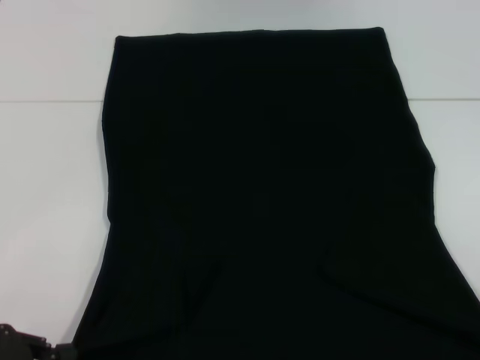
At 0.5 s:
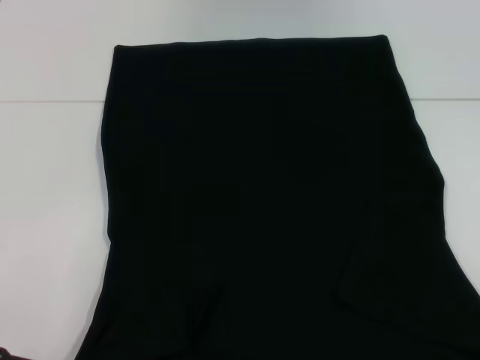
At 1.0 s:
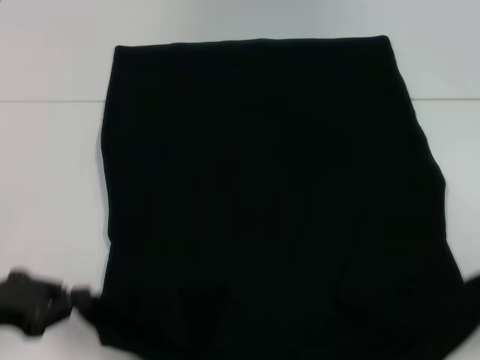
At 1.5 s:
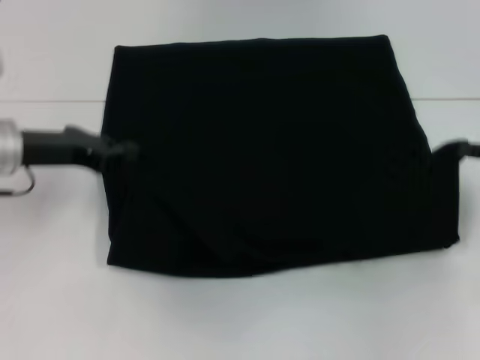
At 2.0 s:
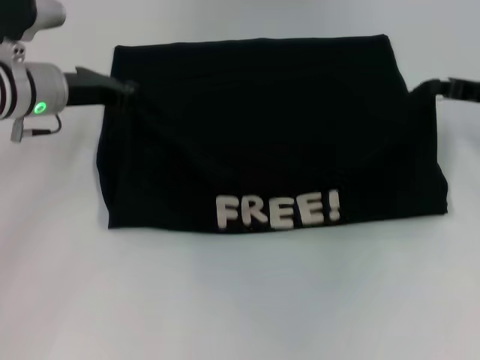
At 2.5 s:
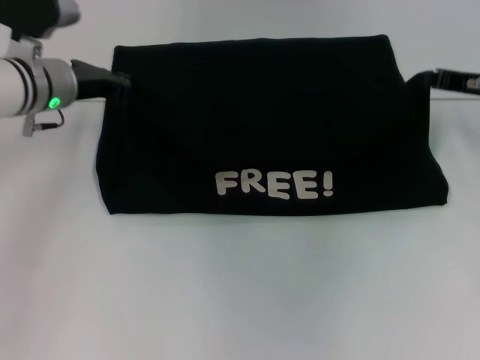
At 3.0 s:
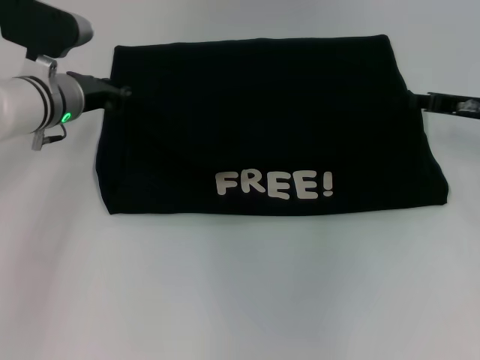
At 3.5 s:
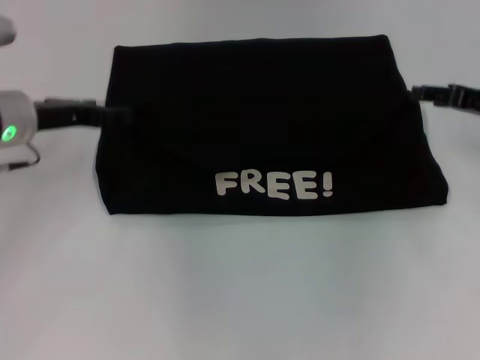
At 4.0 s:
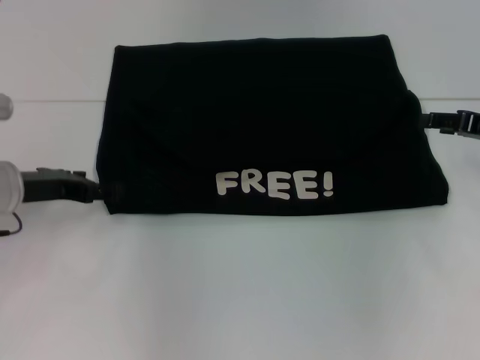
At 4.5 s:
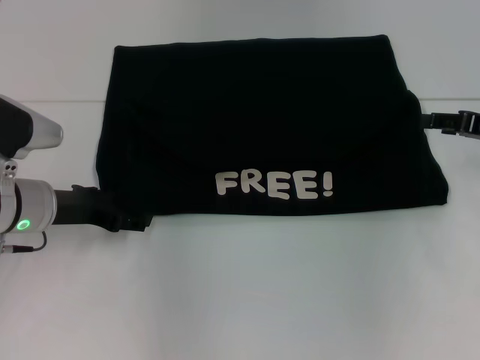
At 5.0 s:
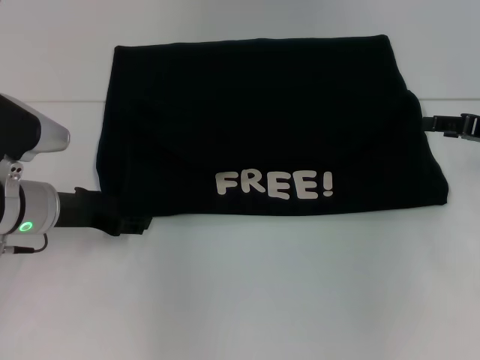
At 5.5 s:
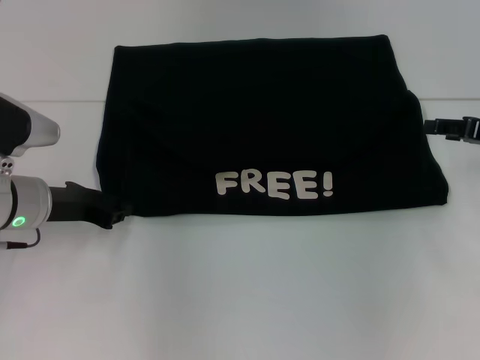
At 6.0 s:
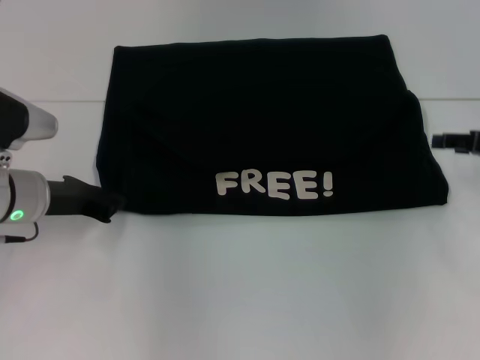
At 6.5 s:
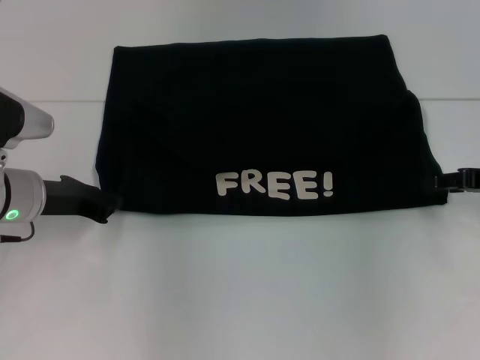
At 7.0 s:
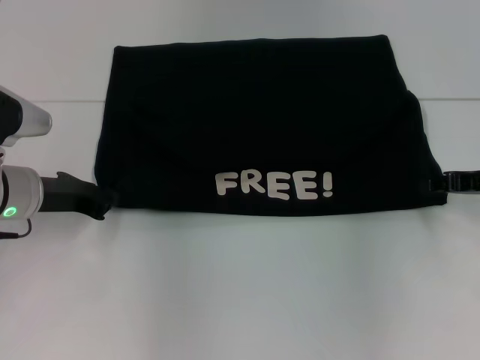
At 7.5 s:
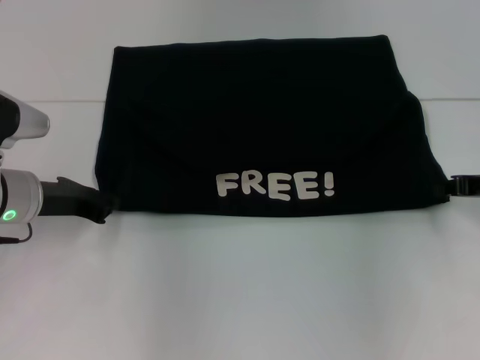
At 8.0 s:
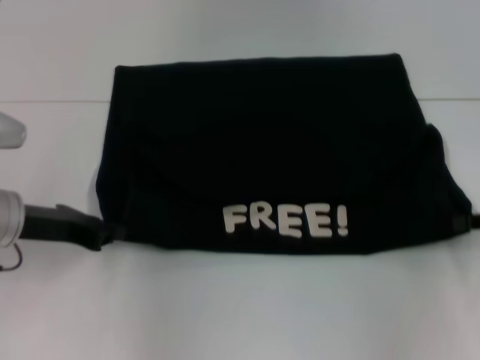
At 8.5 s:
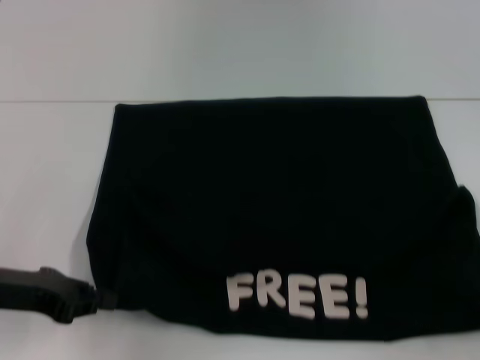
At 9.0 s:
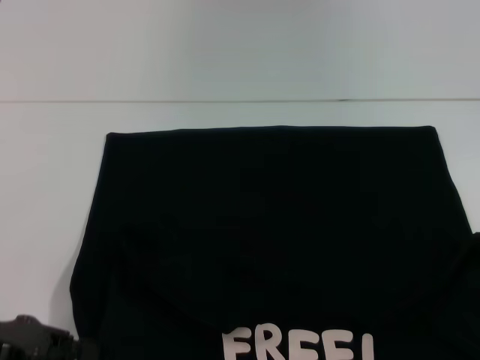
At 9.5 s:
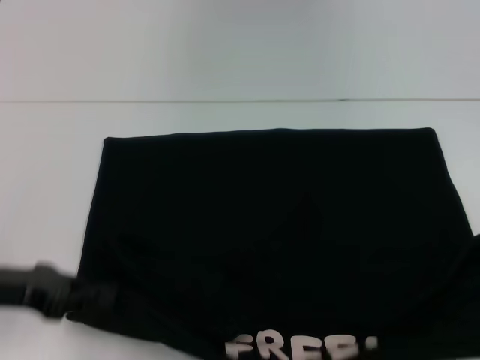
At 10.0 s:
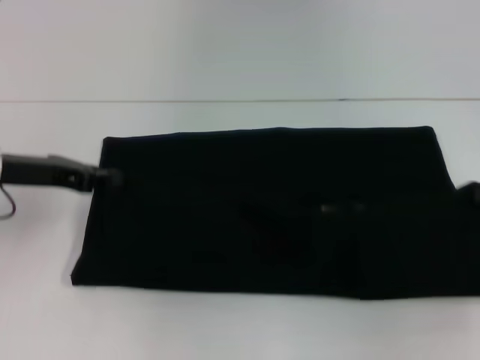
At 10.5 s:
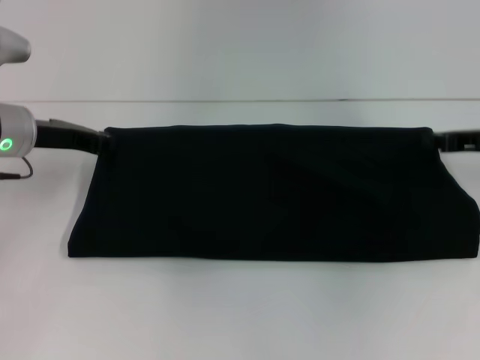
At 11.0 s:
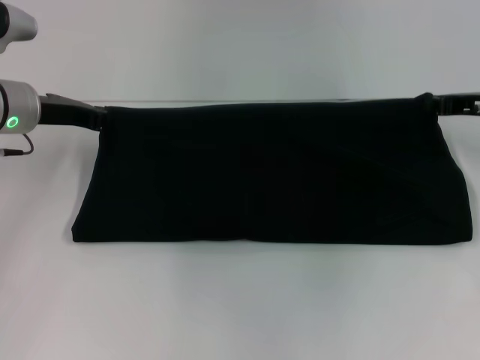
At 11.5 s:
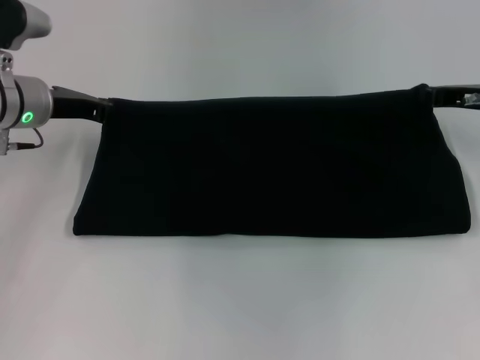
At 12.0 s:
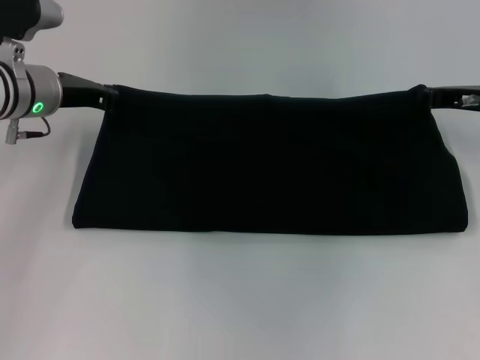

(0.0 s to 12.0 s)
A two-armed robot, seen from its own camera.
Step, 0.0 s - 3.0 s: Fold the clothes with your left hand.
Step, 0.0 s - 3.0 s: Fold the clothes with your right hand.
Step, 3.5 s - 9.0 s: Pull the clothes with your left hand.
Step, 3.5 s - 9.0 s: Pull the clothes with your right hand.
0.0 s - 2.0 s: Both grippers travel together forward, approximately 25 cm.
2.0 s - 4.0 s: The right gripper opens up. Meanwhile the left gripper goes approximately 10 cm backward and downward, and opens.
4.0 s - 6.0 s: The left gripper closes.
6.0 s - 8.0 s: The right gripper heads backward, covering some 5 cm, and closes up.
8.0 s - 10.0 s: The left gripper goes backward and returns, roughly 10 cm each way, while the right gripper reaches some 15 cm backward, then returns.
10.0 s - 12.0 s: The left gripper heads forward, covering about 10 cm, while the right gripper is displaced forward and to the left by about 15 cm.

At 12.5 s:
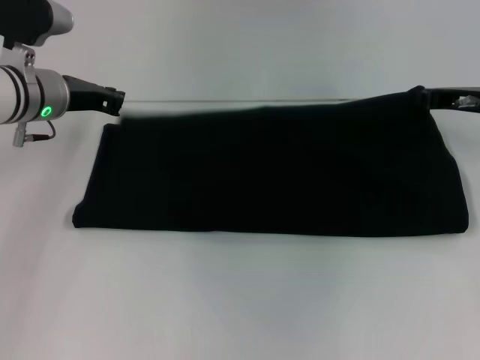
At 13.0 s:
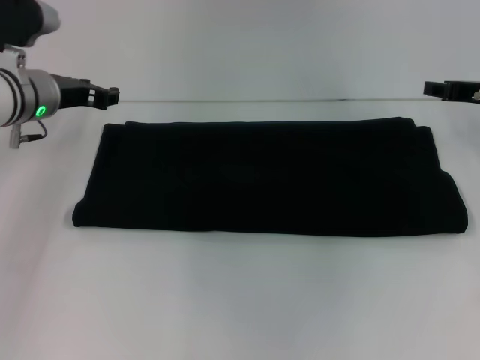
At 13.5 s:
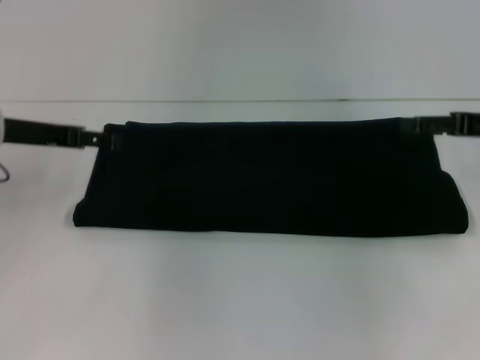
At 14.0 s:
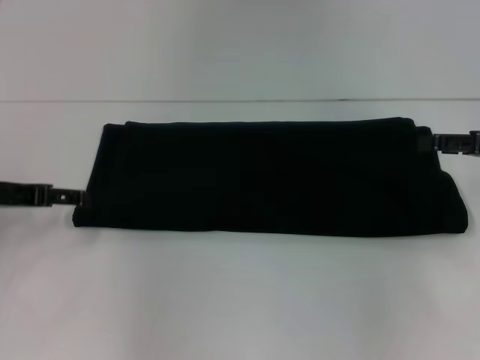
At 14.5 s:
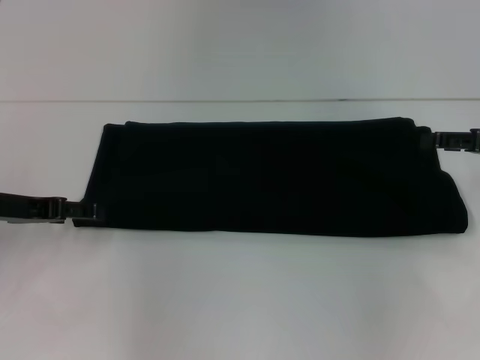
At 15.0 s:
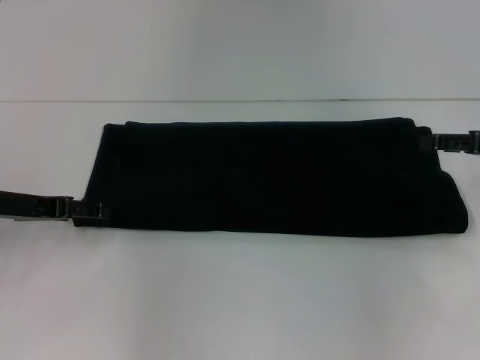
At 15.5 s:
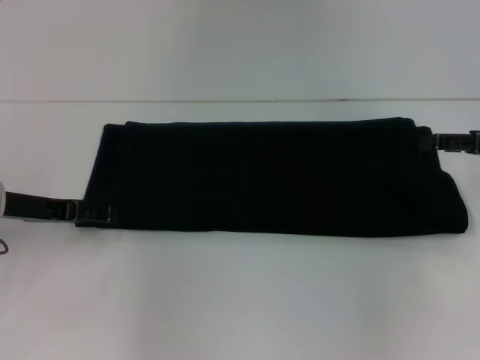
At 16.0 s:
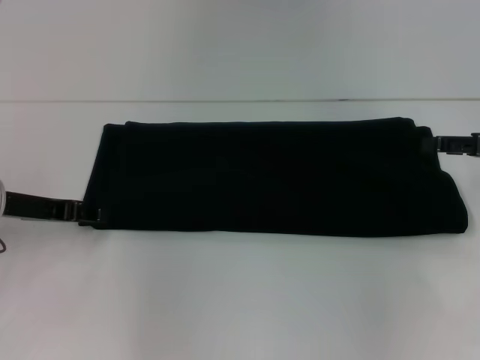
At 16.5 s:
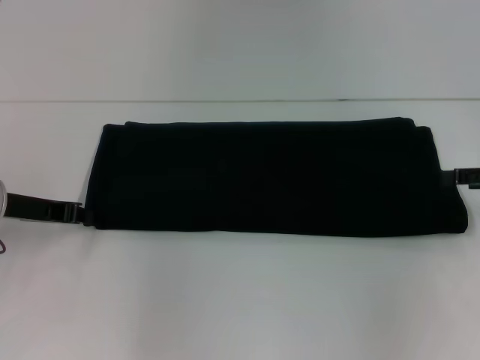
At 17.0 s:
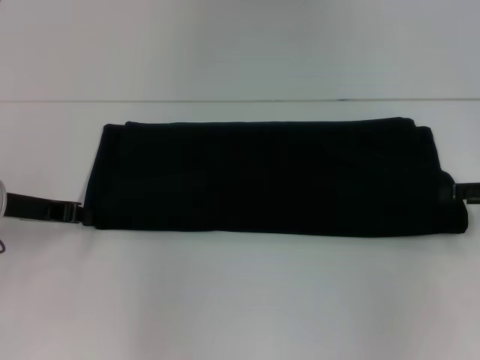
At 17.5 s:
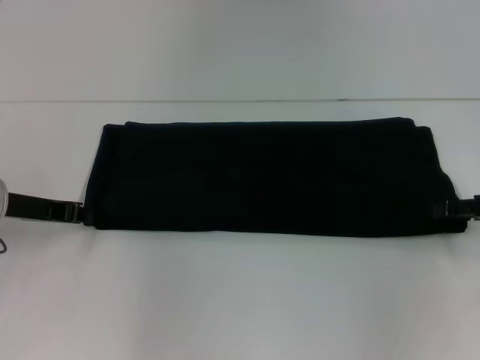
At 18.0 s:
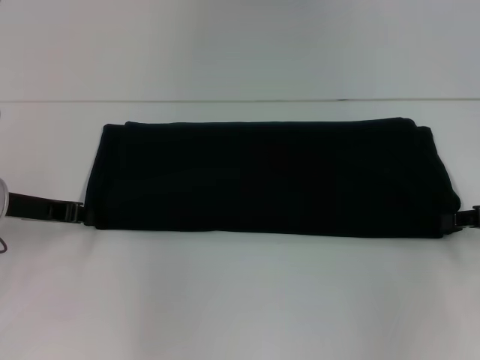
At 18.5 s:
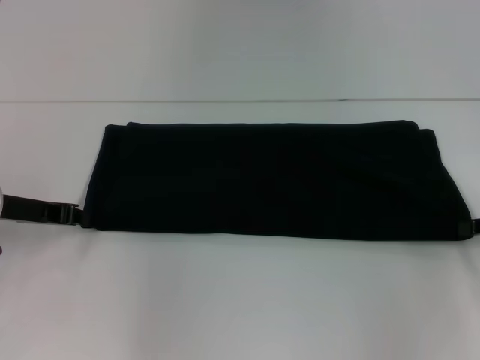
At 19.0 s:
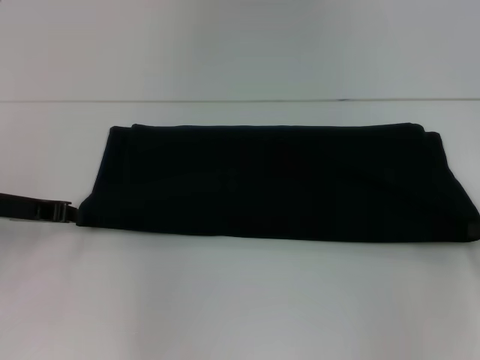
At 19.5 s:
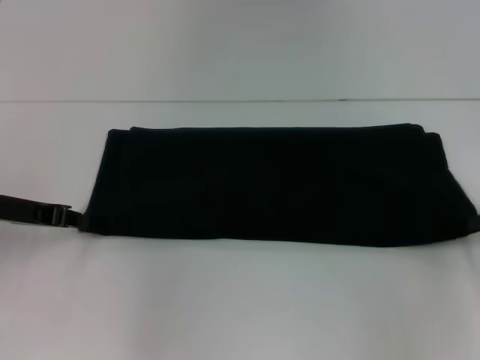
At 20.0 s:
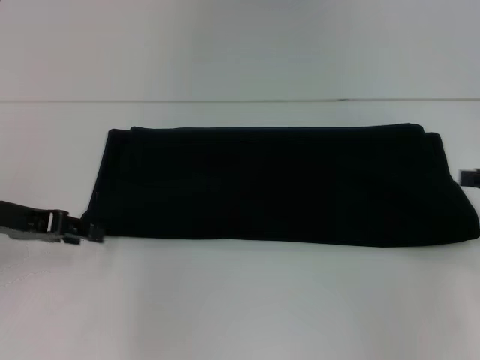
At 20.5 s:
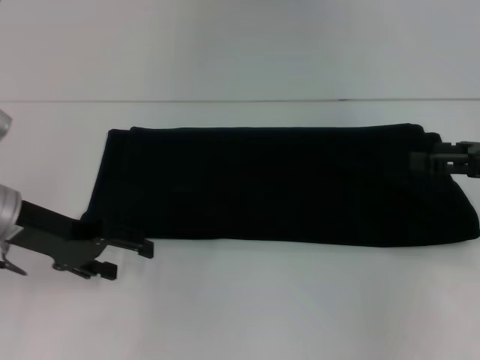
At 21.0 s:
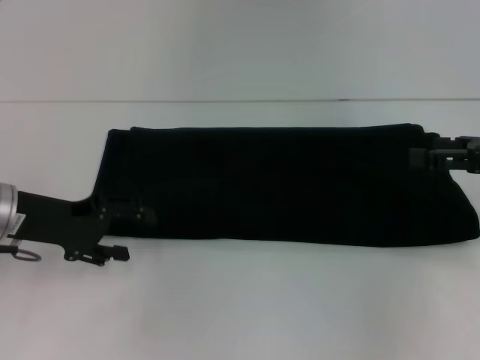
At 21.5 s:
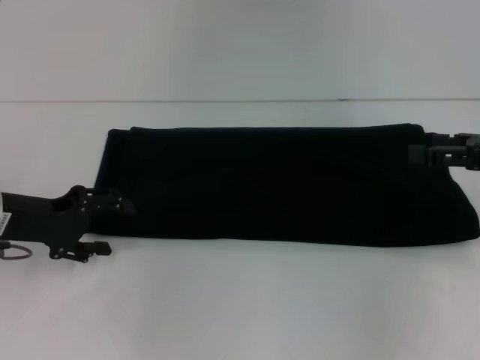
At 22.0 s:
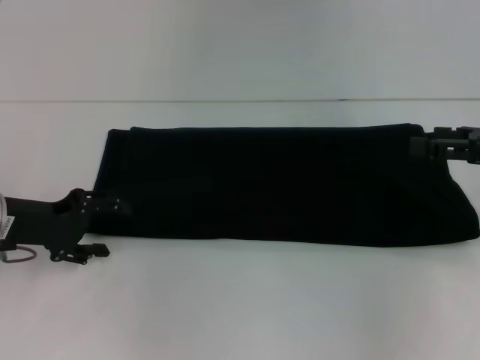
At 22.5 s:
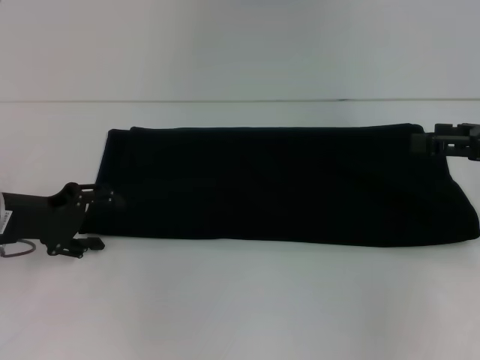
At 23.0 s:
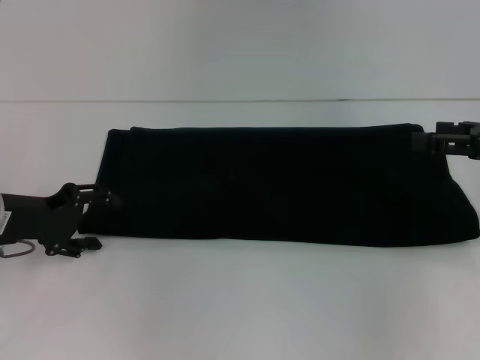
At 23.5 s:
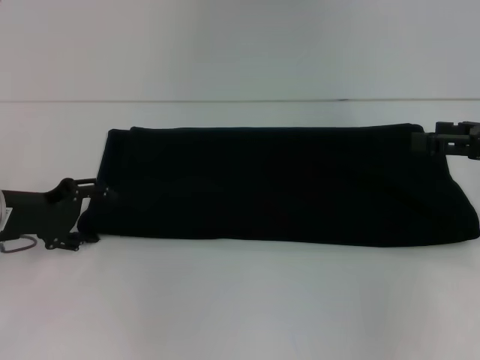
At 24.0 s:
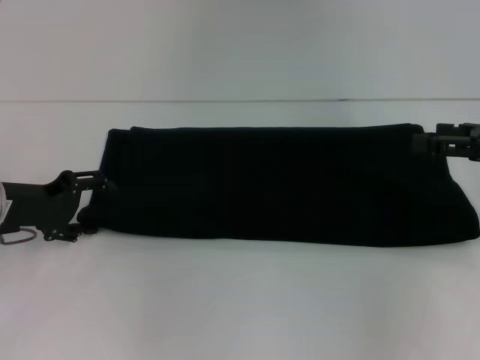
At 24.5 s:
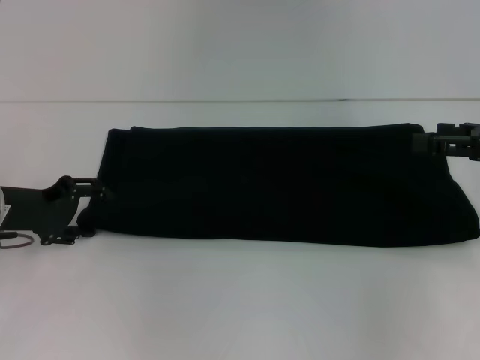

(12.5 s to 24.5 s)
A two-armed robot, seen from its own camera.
12.5 s - 14.5 s: The left gripper moves backward and to the left, some 15 cm, and opens. The right gripper heads backward and to the right, covering about 10 cm, and opens.
14.5 s - 16.5 s: The left gripper closes up.
16.5 s - 18.5 s: The right gripper closes up.
18.5 s - 20.5 s: The left gripper opens its fingers. The right gripper is displaced upward by roughly 5 cm, and opens its fingers.
22.5 s - 24.5 s: The grippers move only a little.

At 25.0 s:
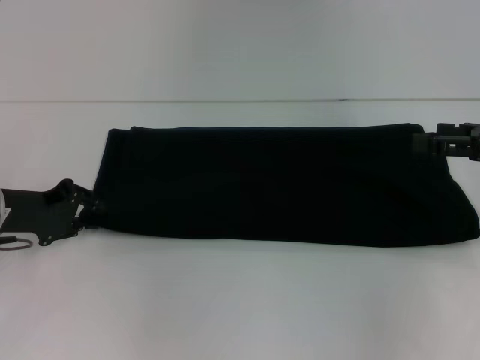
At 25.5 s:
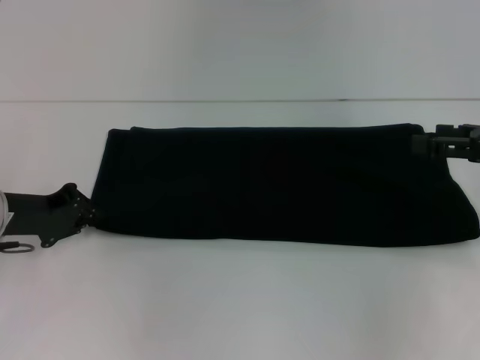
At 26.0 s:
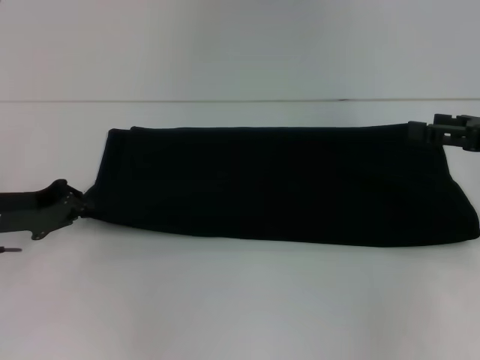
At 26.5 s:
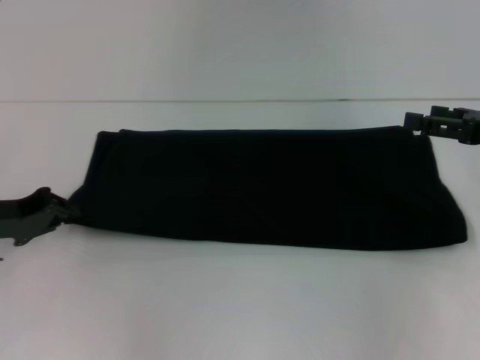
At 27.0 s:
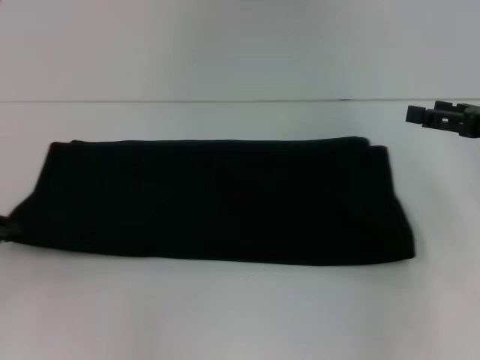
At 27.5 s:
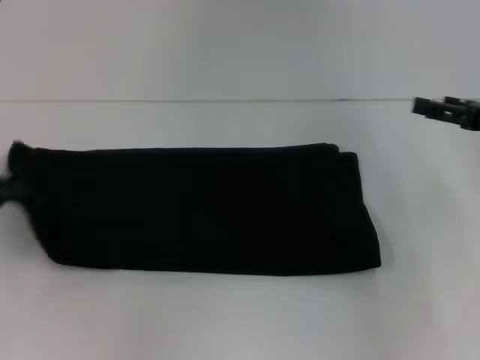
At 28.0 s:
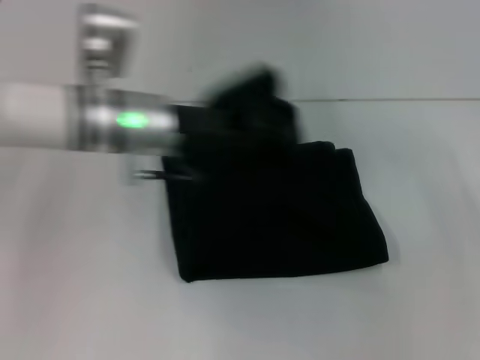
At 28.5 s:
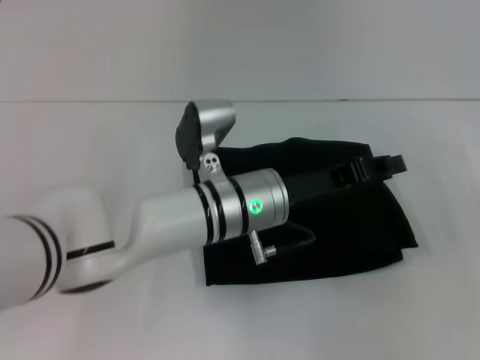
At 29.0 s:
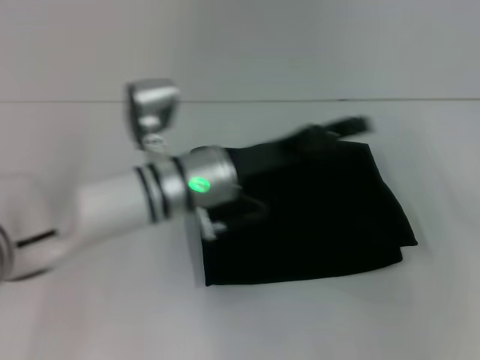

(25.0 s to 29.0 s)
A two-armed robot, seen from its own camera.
Step, 25.0 s - 28.5 s: Fold the clothes with your left hand.
25.0 s - 27.0 s: The left gripper is displaced to the left and backward by some 10 cm, and closes up.
27.0 s - 29.0 s: The right gripper travels to the right by about 5 cm; the left gripper travels to the right by approximately 30 cm, and opens its fingers.
